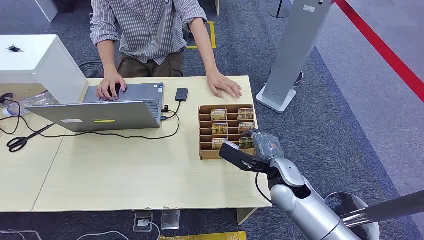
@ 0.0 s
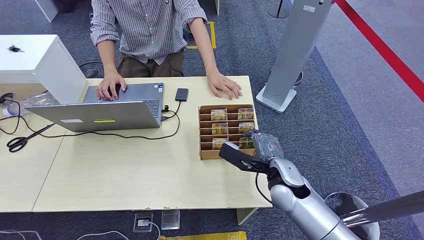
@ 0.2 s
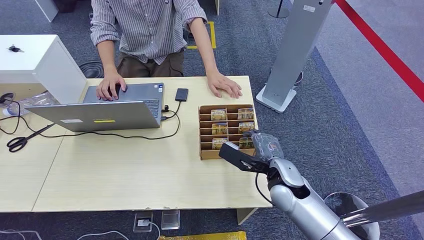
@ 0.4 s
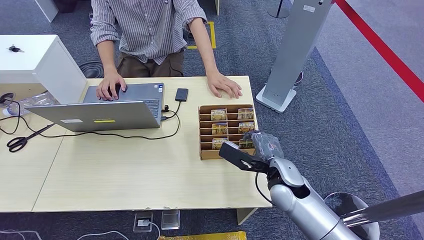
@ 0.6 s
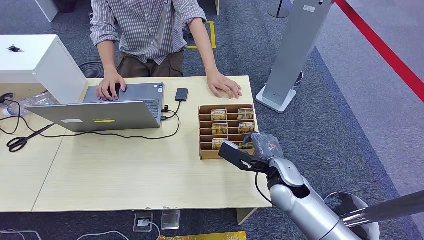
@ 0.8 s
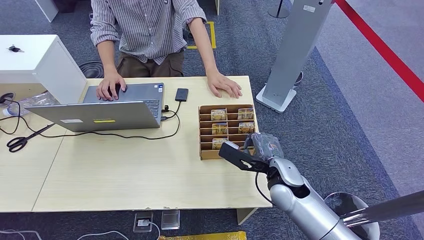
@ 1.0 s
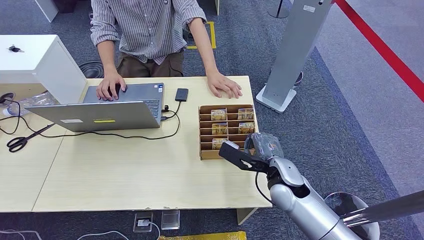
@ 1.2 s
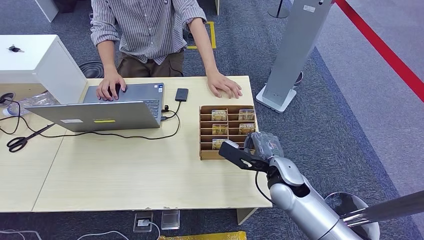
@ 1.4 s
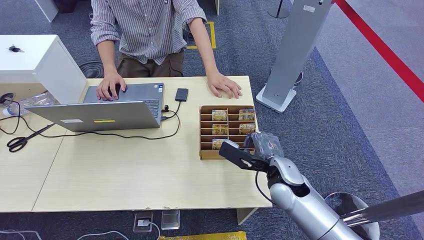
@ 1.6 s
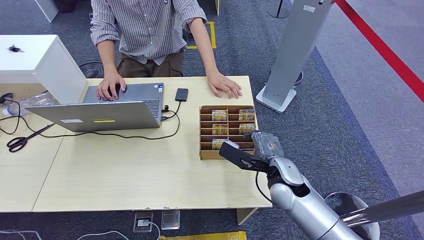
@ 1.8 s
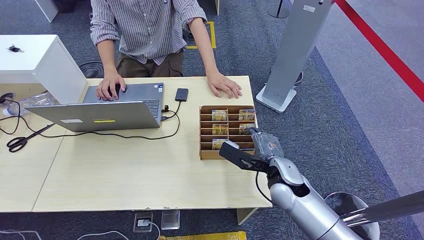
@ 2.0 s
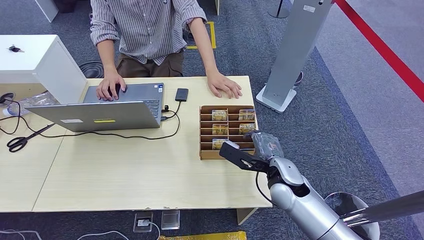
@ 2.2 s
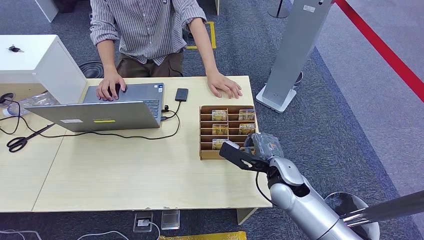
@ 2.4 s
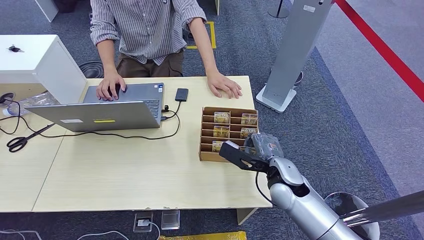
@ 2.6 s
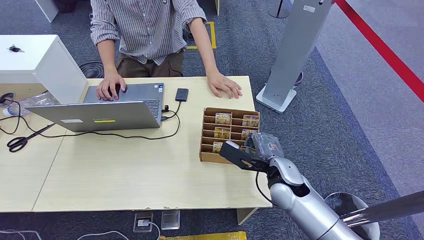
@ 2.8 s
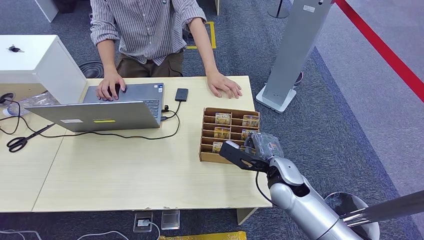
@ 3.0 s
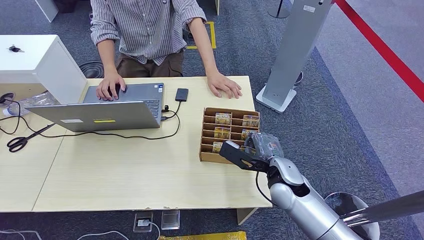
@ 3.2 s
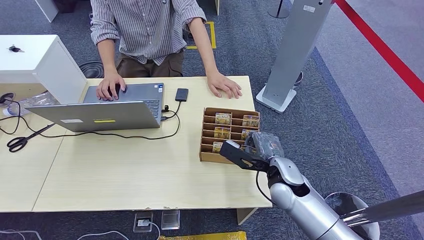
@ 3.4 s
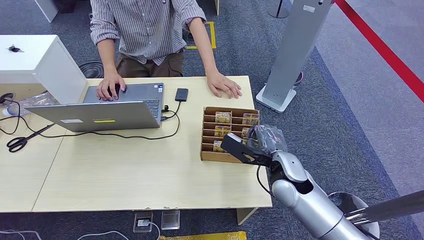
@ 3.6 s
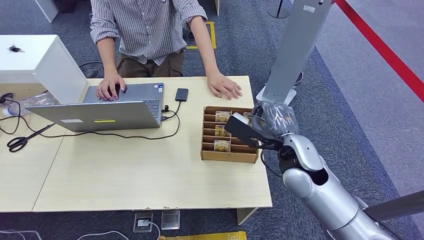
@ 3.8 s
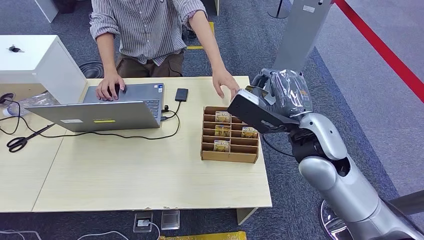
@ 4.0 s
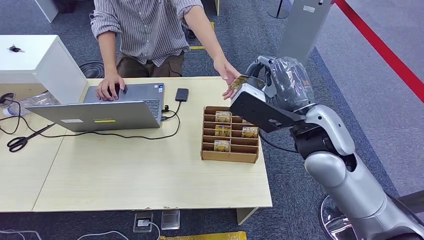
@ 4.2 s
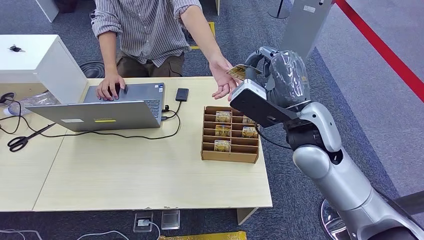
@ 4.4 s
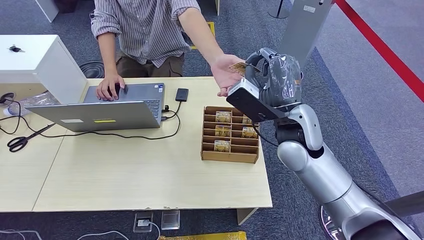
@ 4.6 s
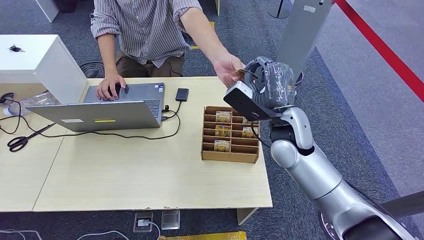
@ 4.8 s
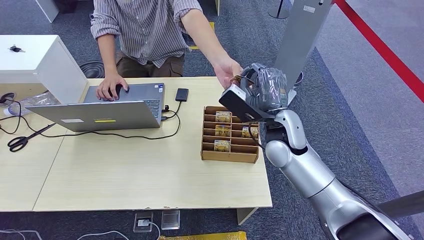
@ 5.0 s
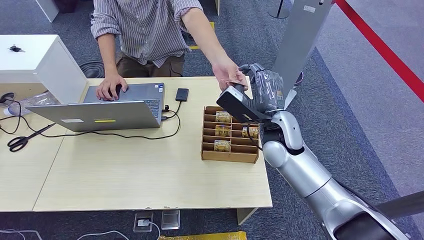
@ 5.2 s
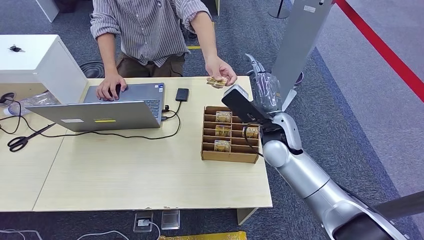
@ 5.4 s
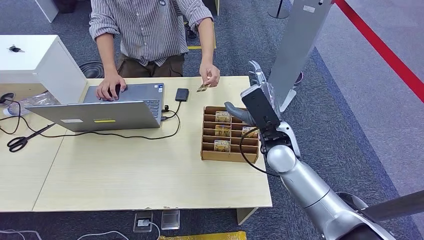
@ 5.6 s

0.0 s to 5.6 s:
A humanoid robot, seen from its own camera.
Step, 0.0 to 3.8 s: Pick up the room card from the card holder.
Step, 4.8 to 5.6 s: Hand the room card to the target.
1.4 to 2.8 s: Both hands stay put.
4.2 to 5.6 s: The right hand heads downward and forward, covering approximately 15 cm.
